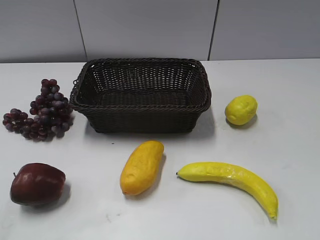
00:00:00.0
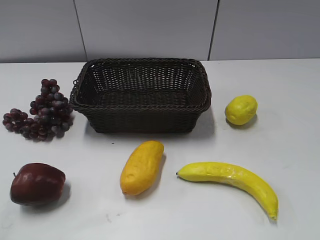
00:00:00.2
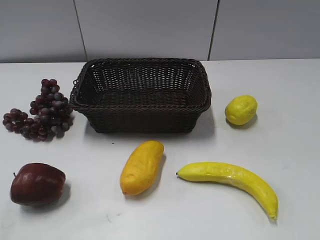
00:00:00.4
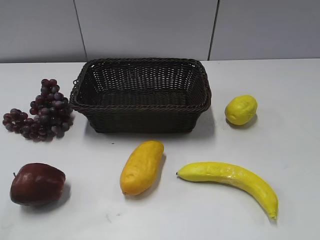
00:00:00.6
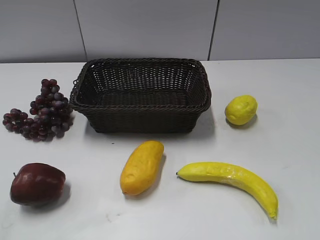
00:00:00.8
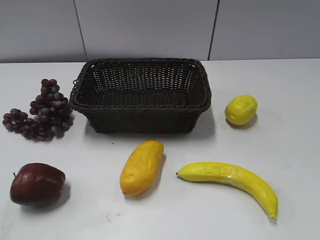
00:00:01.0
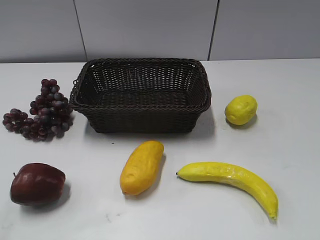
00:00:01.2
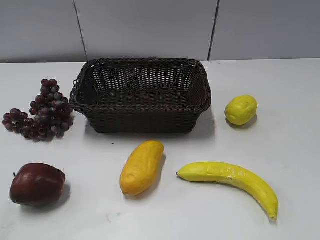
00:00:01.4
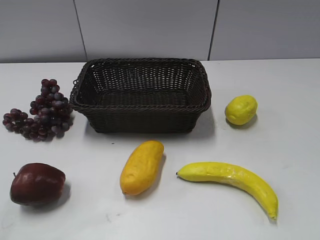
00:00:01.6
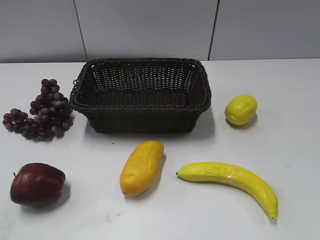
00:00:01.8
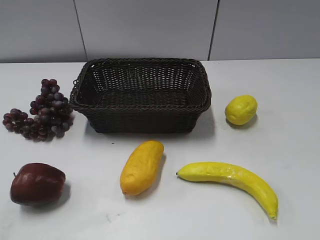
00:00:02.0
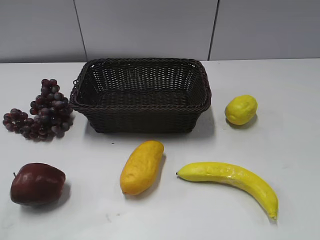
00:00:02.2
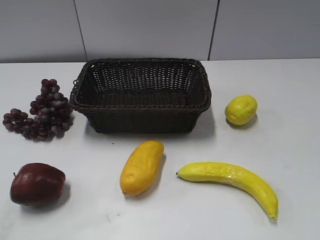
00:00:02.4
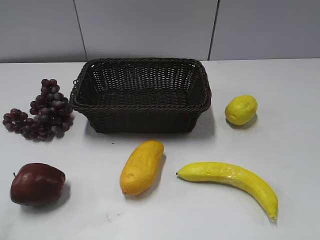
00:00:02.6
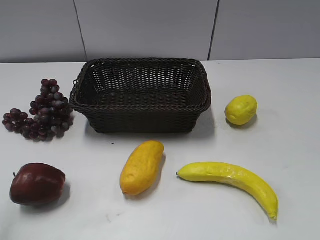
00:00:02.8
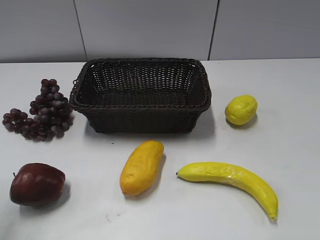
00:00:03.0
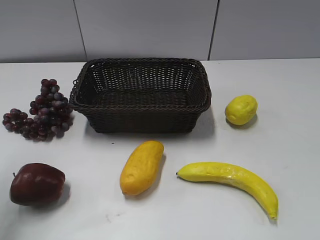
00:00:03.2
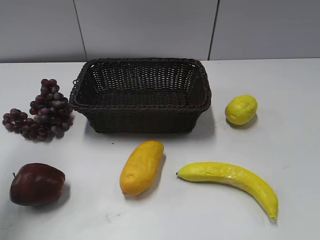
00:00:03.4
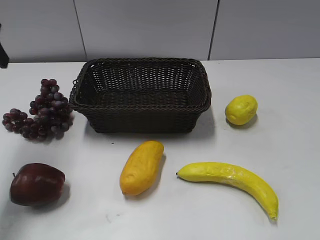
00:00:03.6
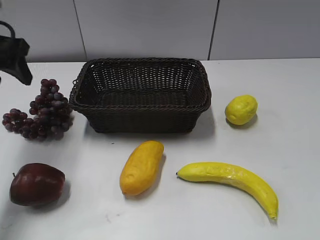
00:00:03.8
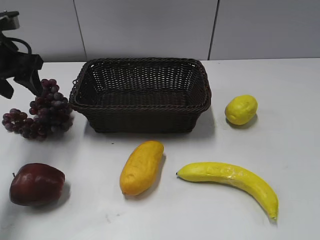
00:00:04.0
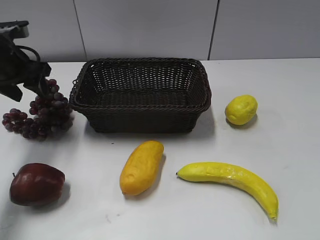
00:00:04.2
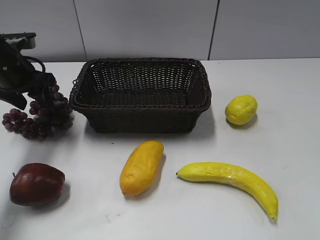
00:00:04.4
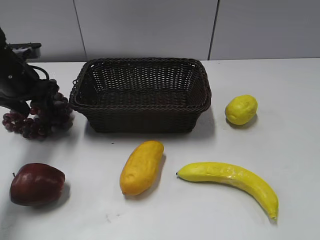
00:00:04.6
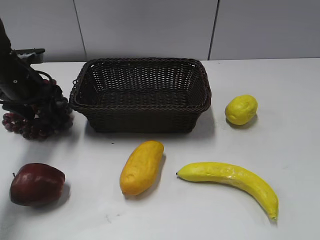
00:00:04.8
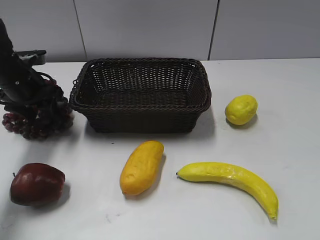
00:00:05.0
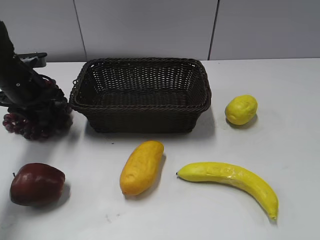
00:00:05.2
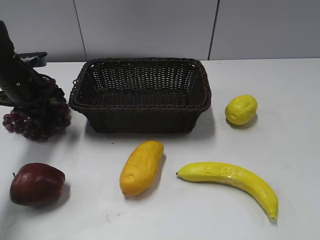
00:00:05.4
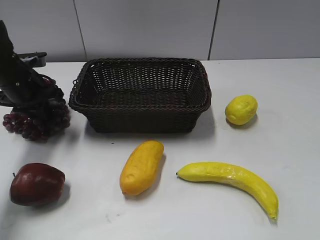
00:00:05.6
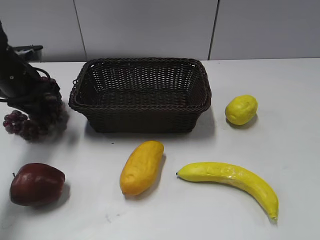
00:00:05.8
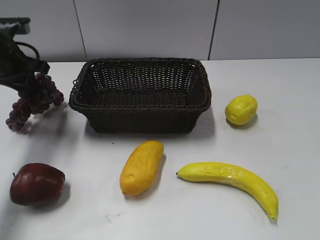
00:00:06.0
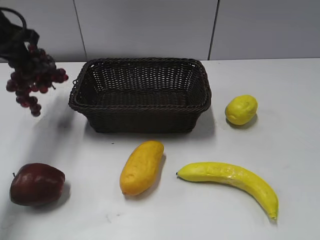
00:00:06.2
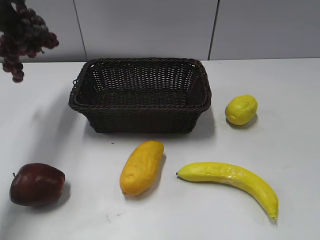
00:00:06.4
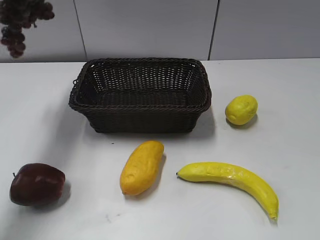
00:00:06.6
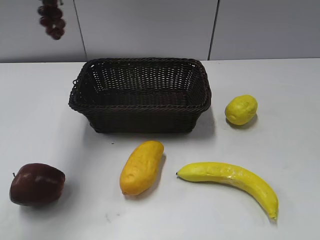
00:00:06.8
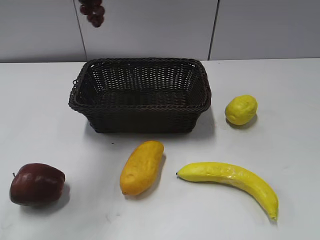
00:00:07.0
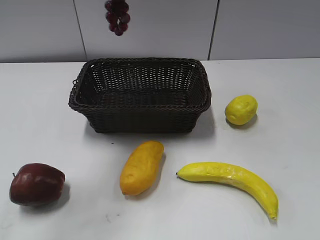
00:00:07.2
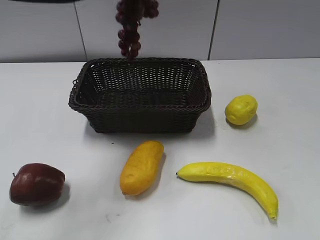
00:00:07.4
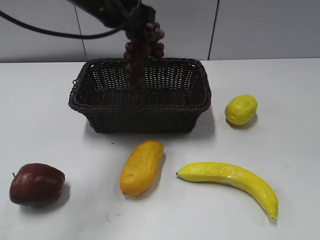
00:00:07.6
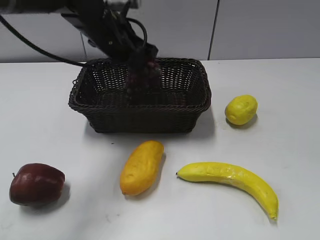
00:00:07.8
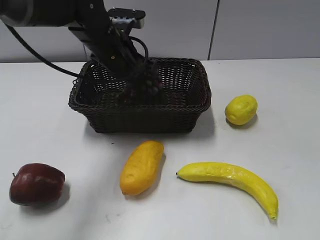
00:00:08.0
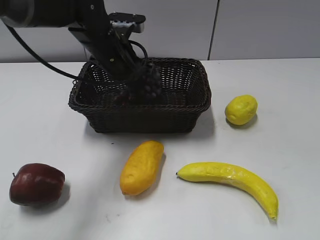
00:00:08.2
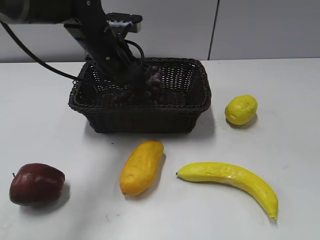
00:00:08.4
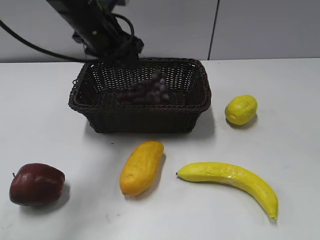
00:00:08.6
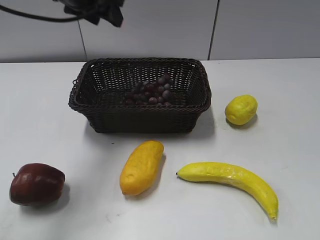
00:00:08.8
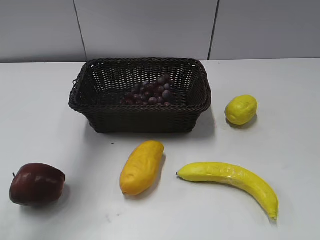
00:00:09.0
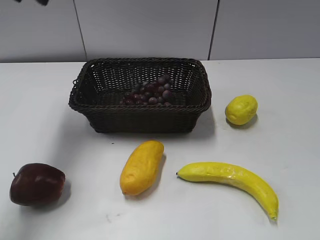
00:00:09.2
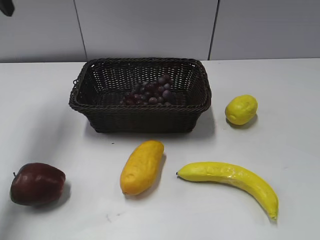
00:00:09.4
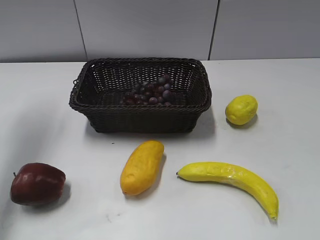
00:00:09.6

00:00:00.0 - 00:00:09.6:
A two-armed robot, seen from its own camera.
Step, 00:00:03.6 - 00:00:05.8: Grasp the grape with left gripper.
Step, 00:00:06.0 - 00:00:08.4: Place the grape in the basket with left gripper.
00:00:01.6 - 00:00:03.2: The left gripper goes roughly 25 cm forward.
00:00:03.2 - 00:00:04.8: The left gripper shifts approximately 25 cm downward and forward.
00:00:04.8 - 00:00:06.4: The left gripper moves upward, approximately 20 cm, and closes up.
00:00:06.4 - 00:00:08.0: The left gripper is displaced to the right and downward by some 25 cm.
00:00:08.0 - 00:00:09.6: The left gripper is displaced to the left and upward by about 30 cm, and opens.

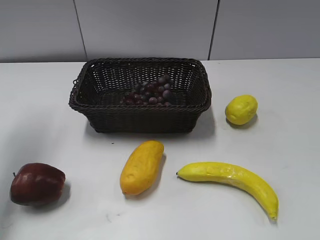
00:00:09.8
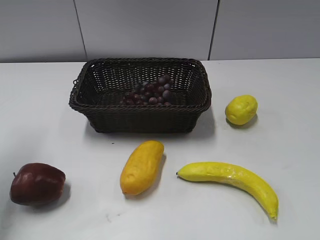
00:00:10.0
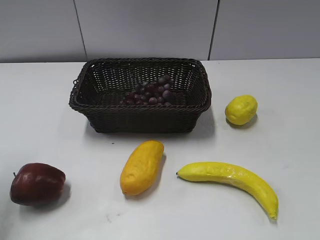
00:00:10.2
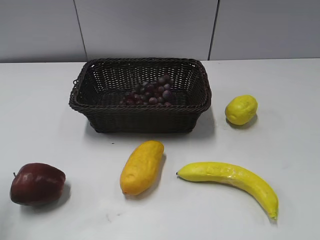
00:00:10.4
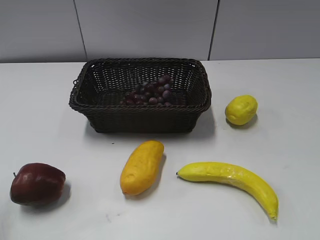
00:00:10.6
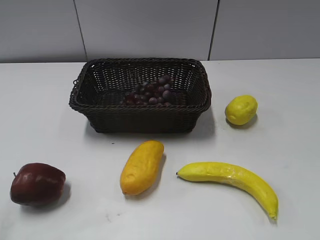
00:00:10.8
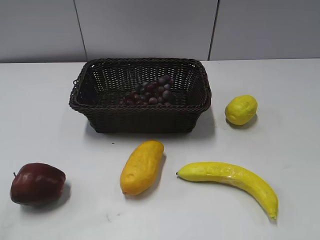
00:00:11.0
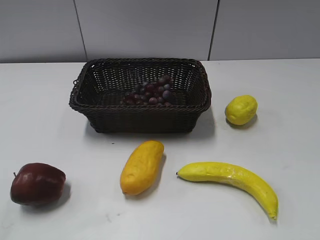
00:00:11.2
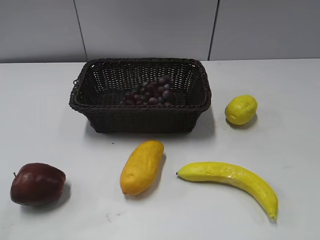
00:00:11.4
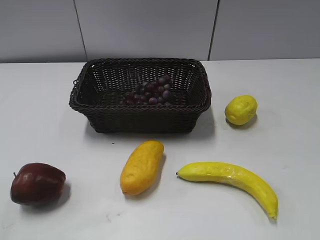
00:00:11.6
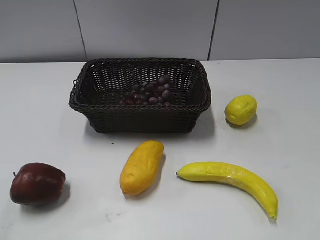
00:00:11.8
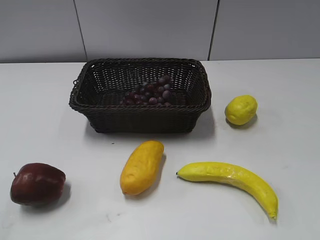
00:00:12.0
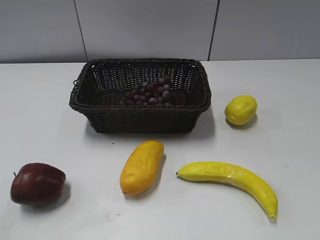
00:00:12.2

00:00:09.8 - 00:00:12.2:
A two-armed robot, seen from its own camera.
00:00:09.8 - 00:00:11.0: The left gripper shifts about 25 cm backward.
